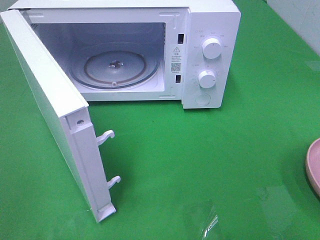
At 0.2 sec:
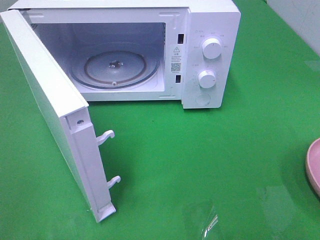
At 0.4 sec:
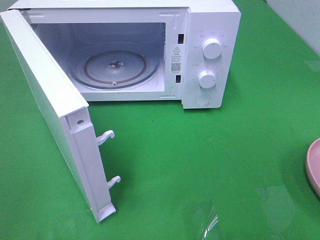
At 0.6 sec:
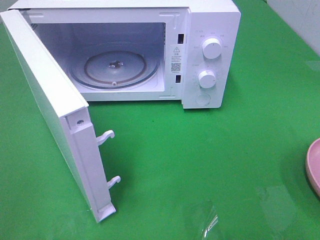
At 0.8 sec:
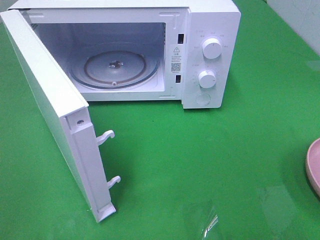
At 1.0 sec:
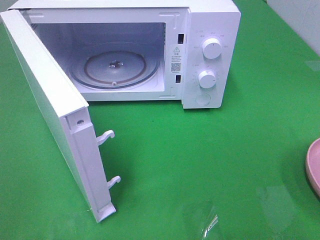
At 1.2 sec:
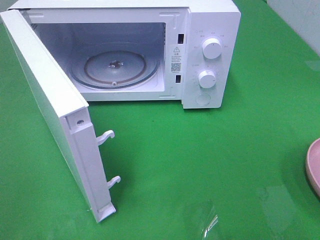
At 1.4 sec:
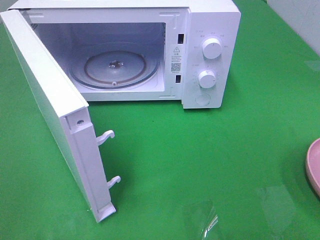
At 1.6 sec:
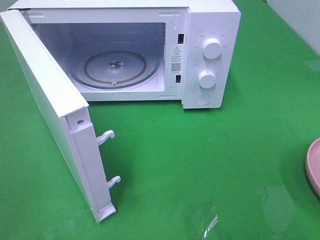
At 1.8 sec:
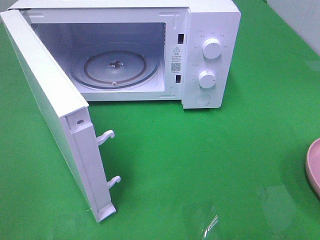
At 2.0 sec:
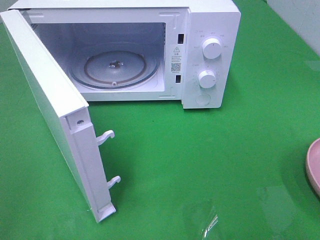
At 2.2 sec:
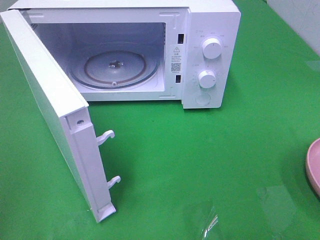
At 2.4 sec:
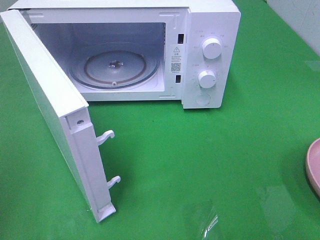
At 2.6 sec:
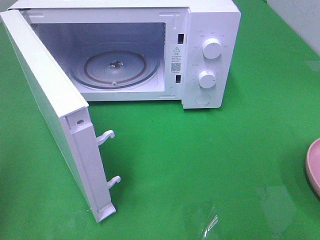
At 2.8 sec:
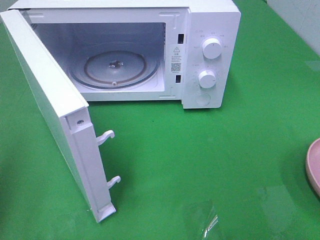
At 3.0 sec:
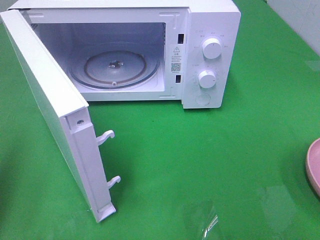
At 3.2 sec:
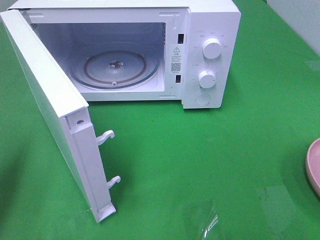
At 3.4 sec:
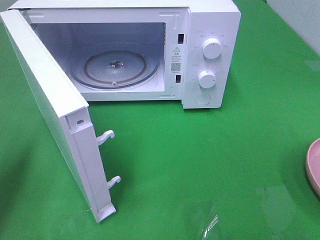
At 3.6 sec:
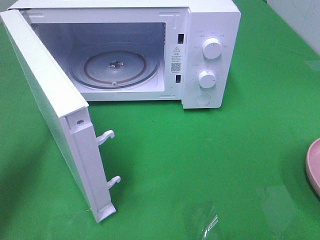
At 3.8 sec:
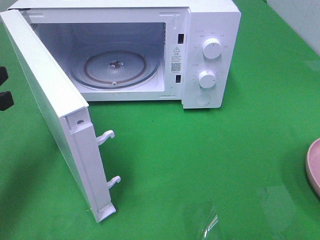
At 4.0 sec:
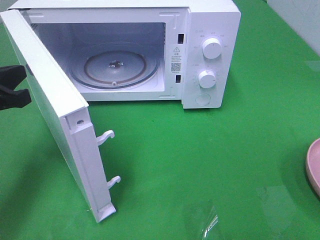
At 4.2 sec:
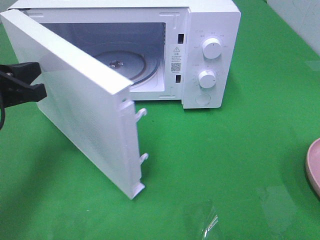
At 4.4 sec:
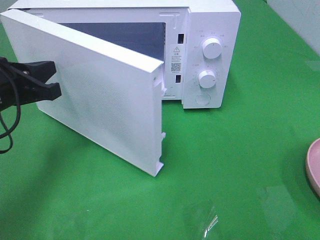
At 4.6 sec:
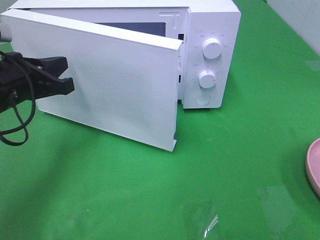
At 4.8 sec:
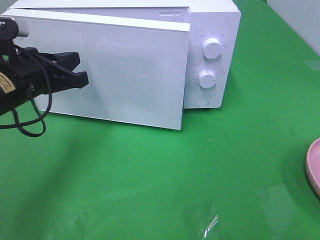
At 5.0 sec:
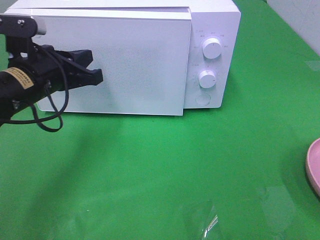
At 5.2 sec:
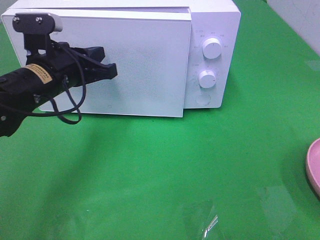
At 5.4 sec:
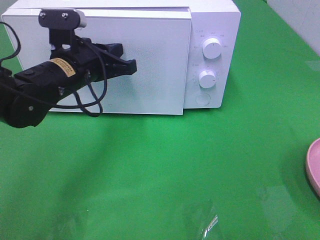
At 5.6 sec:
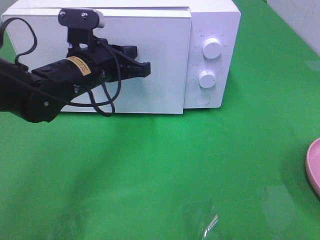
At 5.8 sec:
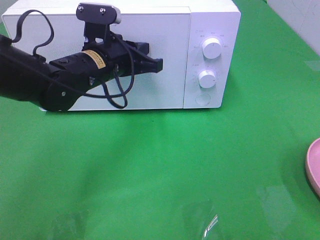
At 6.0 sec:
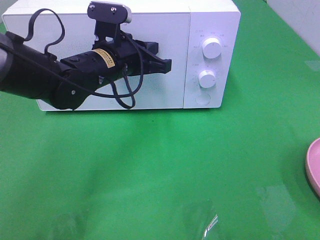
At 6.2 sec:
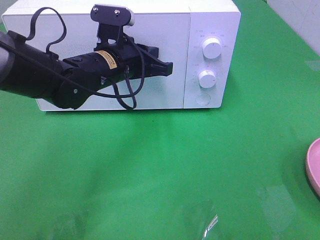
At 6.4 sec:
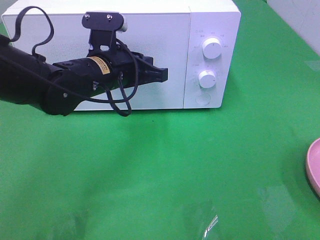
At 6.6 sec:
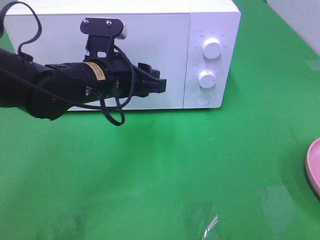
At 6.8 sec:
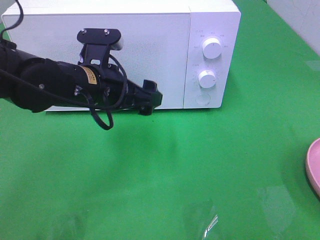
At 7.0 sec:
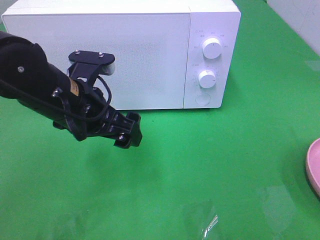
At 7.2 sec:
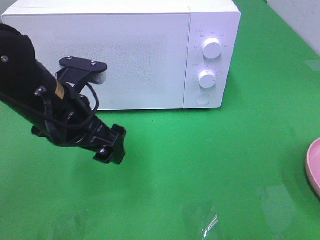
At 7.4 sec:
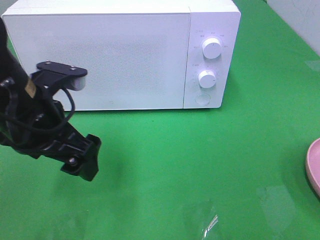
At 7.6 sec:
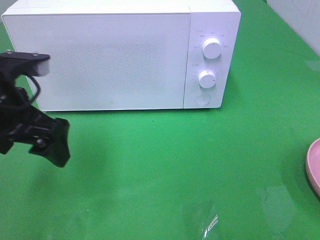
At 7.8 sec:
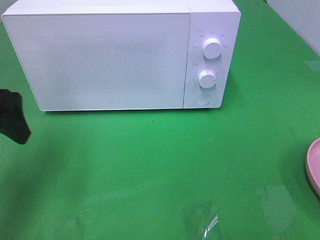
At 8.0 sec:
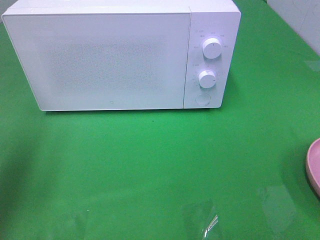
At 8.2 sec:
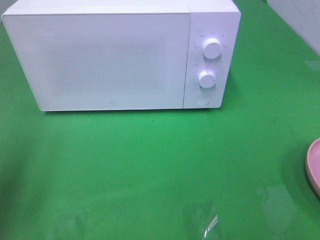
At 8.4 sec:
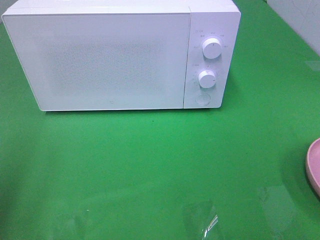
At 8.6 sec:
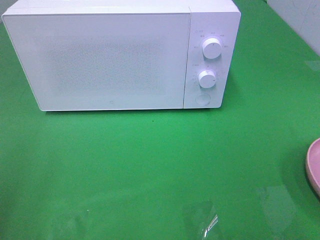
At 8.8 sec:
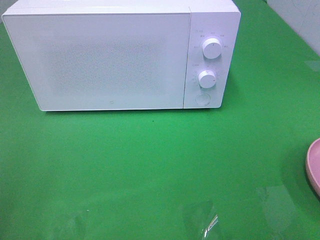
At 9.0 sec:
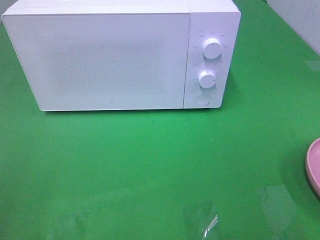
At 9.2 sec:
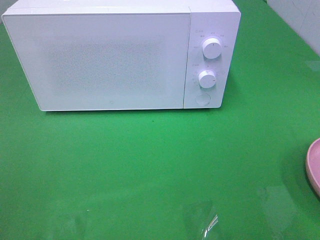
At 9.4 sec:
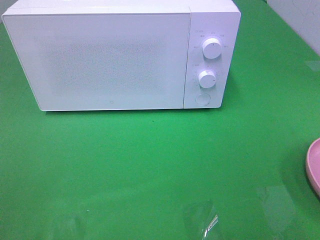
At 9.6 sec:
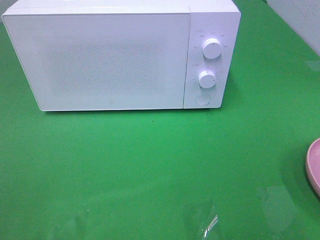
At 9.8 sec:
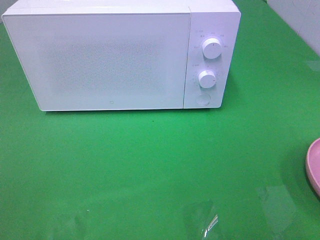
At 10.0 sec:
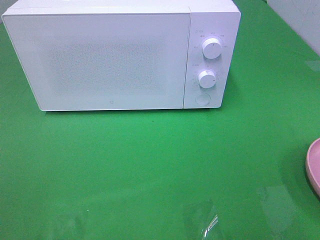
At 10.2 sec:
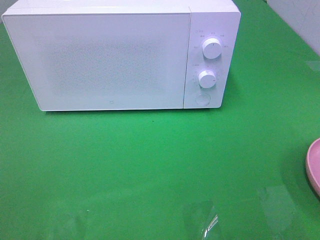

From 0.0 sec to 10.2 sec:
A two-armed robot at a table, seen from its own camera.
Task of the whole recording: Heat the burger.
Step, from 0.0 sec to 6.4 sec: Left hand: close the microwave door.
From 1.4 sec to 3.0 sec: The left gripper moves forward, some 15 cm, and closes.
From 3.0 sec to 4.4 sec: The left gripper moves forward, to the right and downward, some 15 cm.
From 4.4 sec to 5.8 sec: The left gripper heads to the right and forward, covering about 15 cm.
From 5.8 sec to 7.2 sec: The left gripper travels backward by approximately 10 cm, and opens its fingers.
From 7.2 sec to 8.8 sec: The left gripper heads to the left, backward and upward, covering about 30 cm.

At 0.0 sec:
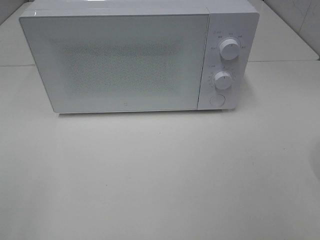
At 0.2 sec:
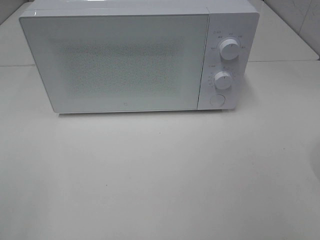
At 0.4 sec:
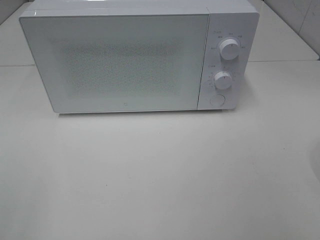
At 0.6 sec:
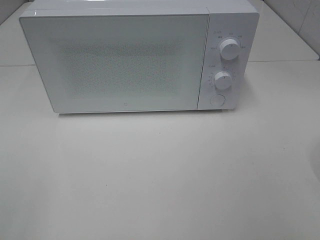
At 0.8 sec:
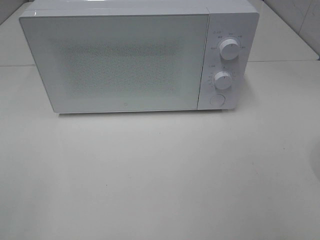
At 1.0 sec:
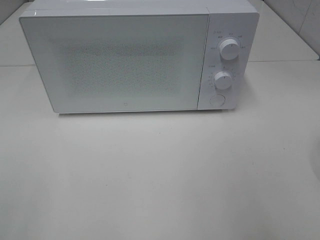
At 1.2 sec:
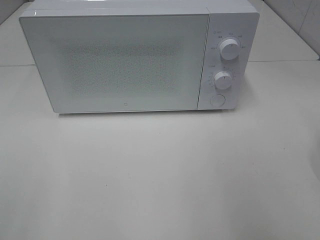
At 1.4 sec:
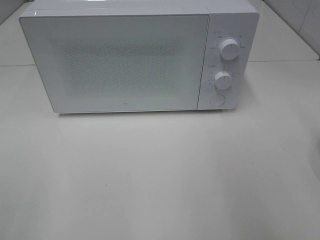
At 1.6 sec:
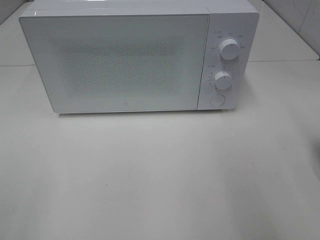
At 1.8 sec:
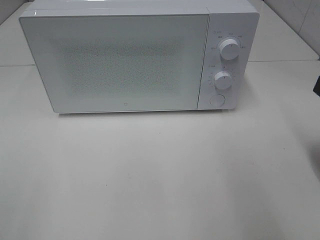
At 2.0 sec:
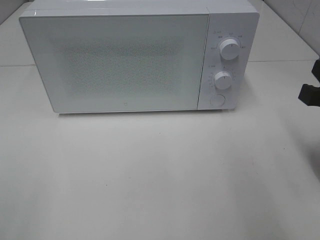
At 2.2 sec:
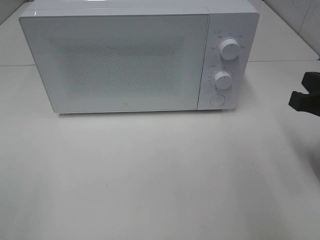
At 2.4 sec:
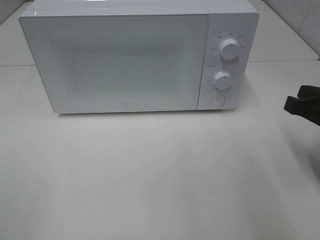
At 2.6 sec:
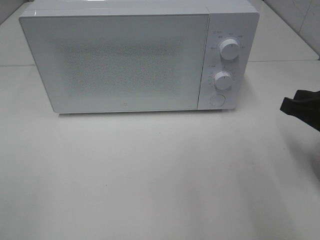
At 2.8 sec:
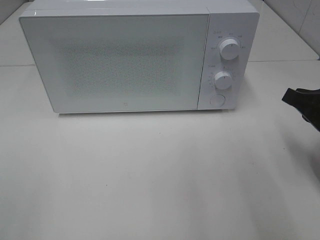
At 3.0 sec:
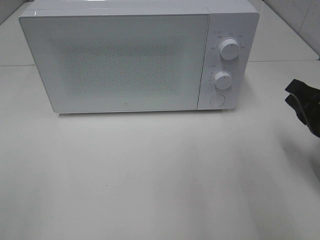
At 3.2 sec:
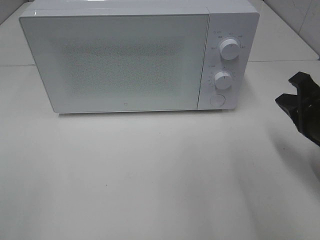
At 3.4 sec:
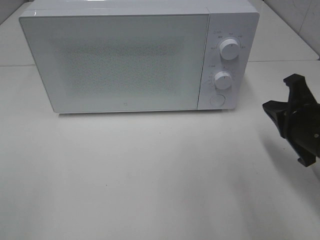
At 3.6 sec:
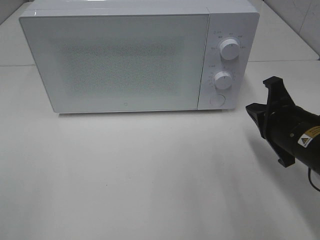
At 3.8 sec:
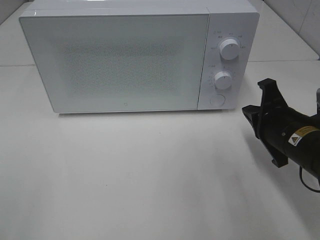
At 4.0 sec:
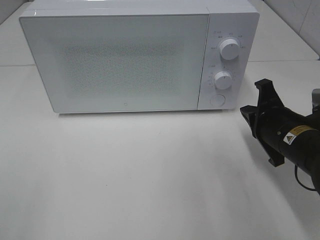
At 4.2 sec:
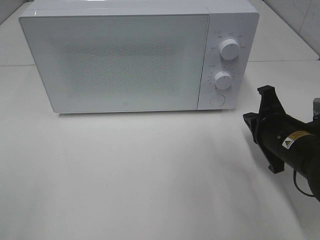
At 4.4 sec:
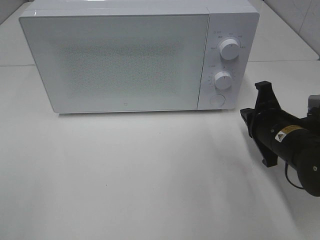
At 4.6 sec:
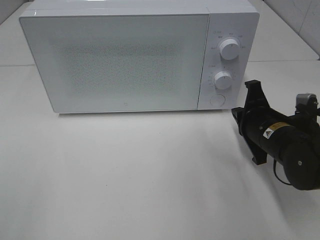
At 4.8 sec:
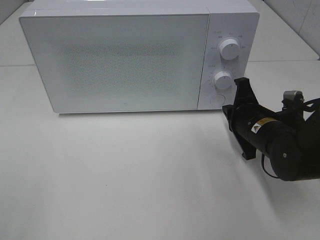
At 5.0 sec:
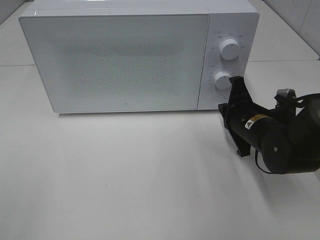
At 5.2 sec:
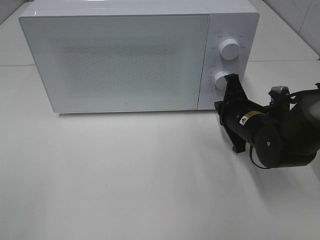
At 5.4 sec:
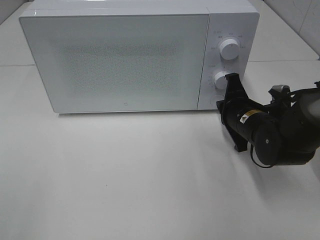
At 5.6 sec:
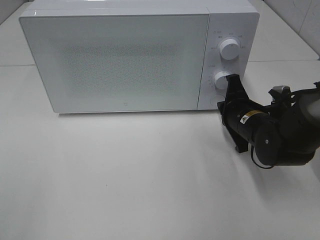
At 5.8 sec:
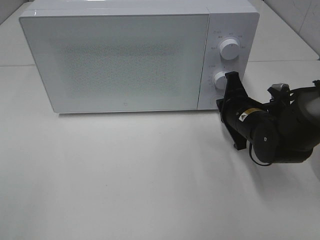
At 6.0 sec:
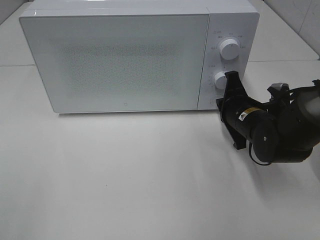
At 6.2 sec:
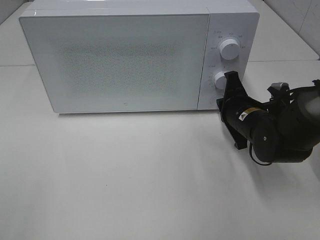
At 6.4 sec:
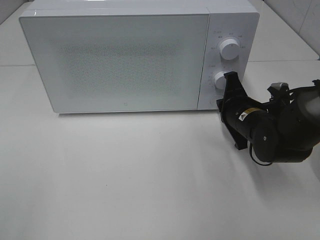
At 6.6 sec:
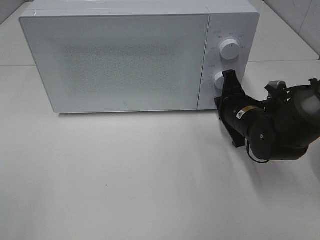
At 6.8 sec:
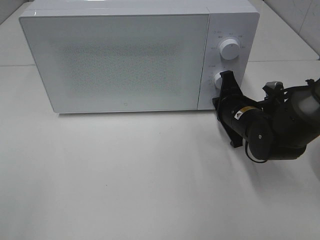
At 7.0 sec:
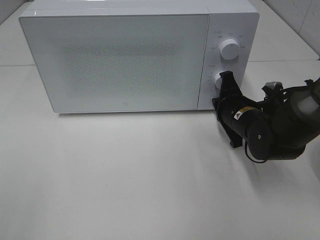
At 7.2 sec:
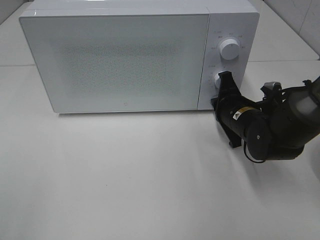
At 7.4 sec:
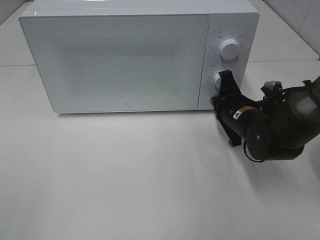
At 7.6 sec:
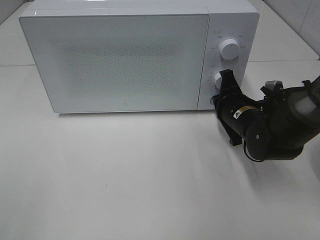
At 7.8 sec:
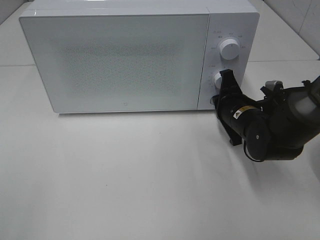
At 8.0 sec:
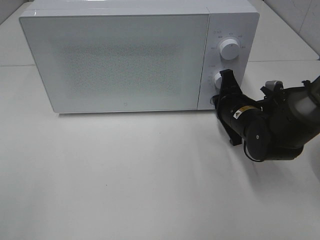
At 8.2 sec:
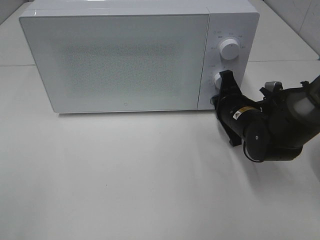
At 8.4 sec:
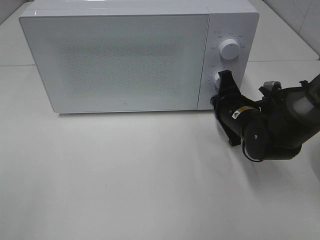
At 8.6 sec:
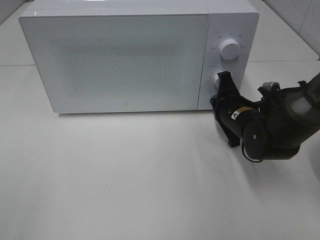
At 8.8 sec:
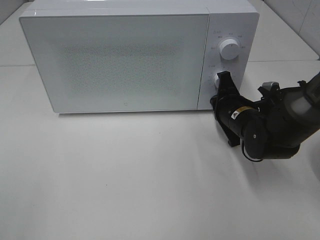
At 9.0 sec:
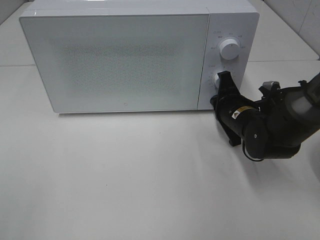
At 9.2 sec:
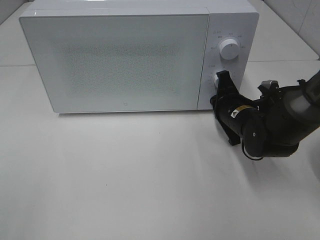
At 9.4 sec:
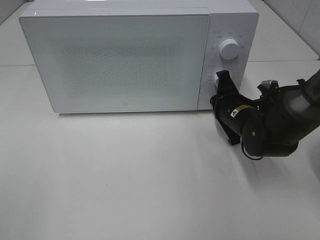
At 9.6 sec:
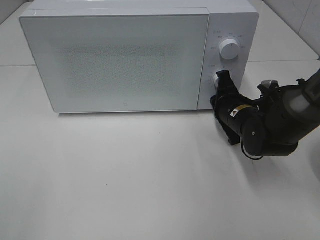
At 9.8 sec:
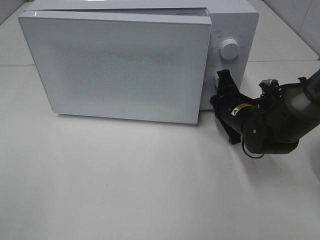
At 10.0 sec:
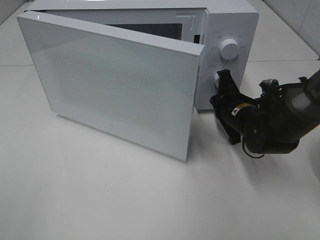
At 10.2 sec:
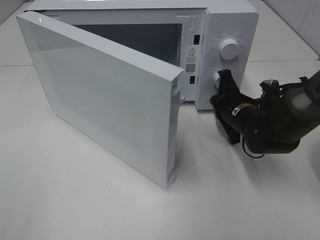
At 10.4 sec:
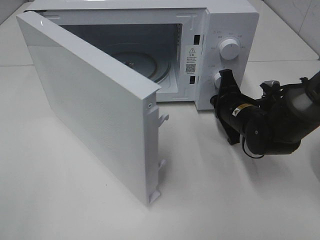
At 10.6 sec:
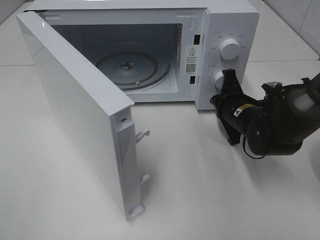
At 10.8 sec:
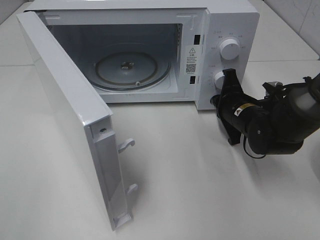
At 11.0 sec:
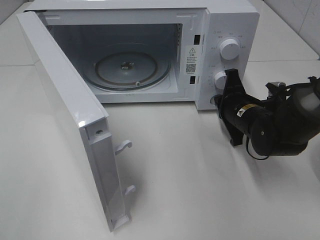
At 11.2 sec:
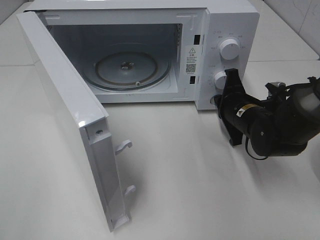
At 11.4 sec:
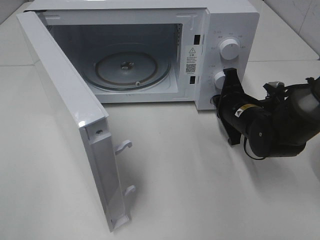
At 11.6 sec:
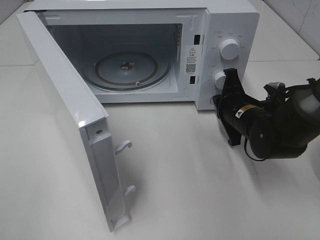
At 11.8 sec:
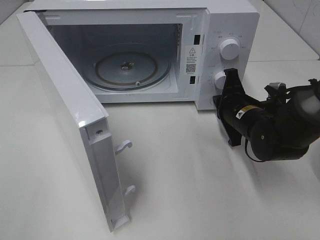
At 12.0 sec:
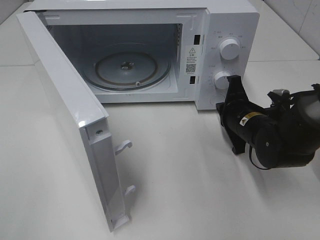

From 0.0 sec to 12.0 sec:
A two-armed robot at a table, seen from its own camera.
Task of the whole recording: Heat the burger.
From 1.6 sec to 3.0 sec: The right gripper is displaced downward and forward by about 10 cm.
From 3.0 sec to 4.4 sec: The right gripper heads downward, to the left and forward, covering about 10 cm.
From 4.4 sec to 6.0 sec: The right gripper is displaced forward by some 5 cm.
From 6.0 sec to 7.6 sec: The two grippers keep their place.
From 7.6 sec to 9.0 sec: The two grippers keep their place.
